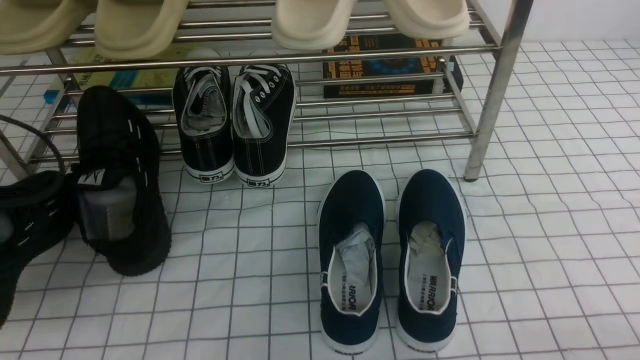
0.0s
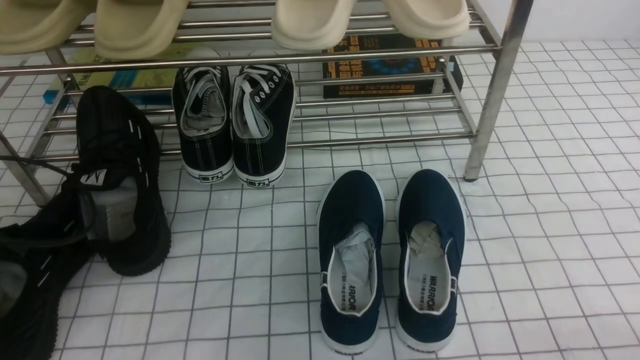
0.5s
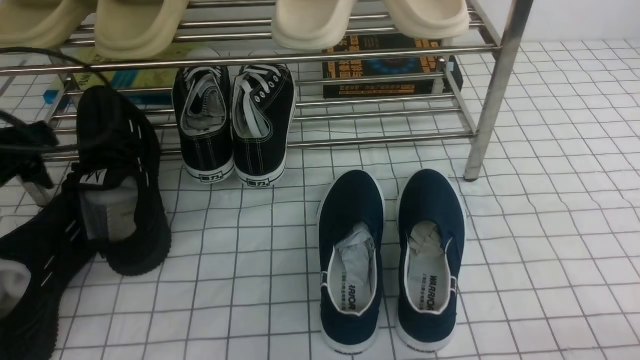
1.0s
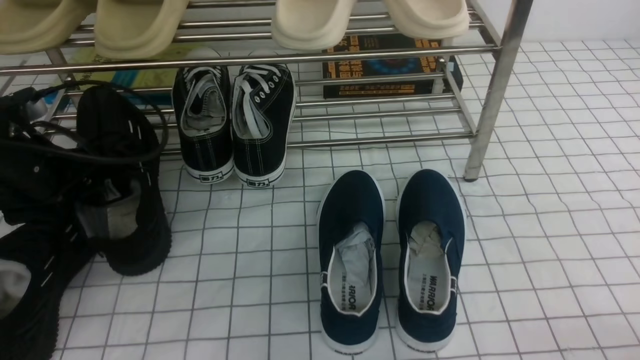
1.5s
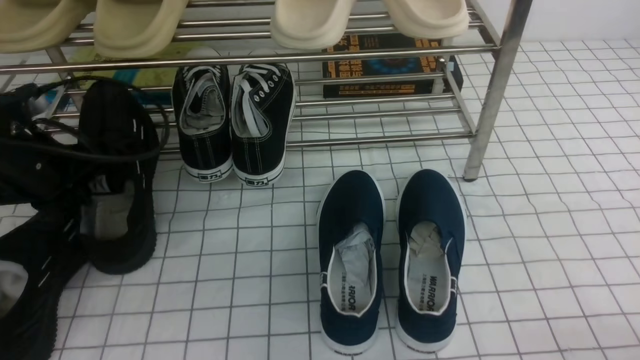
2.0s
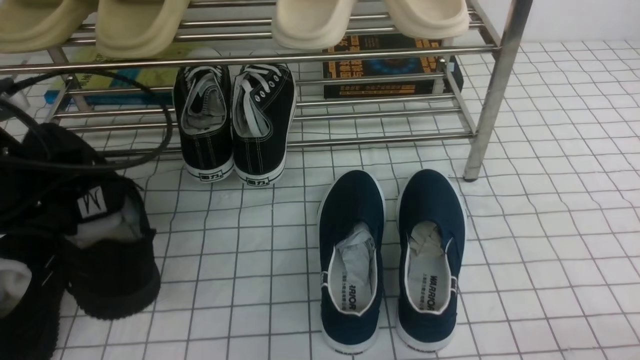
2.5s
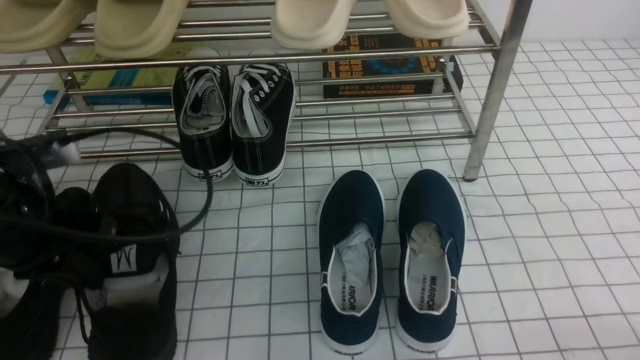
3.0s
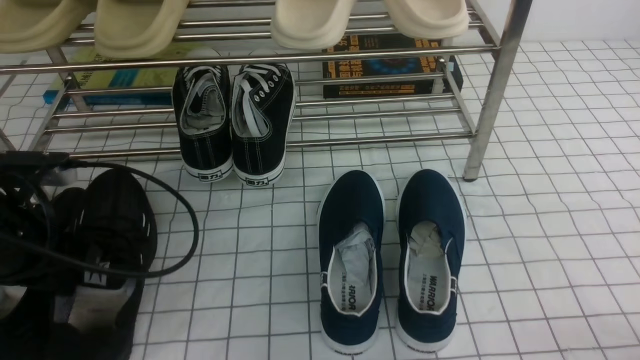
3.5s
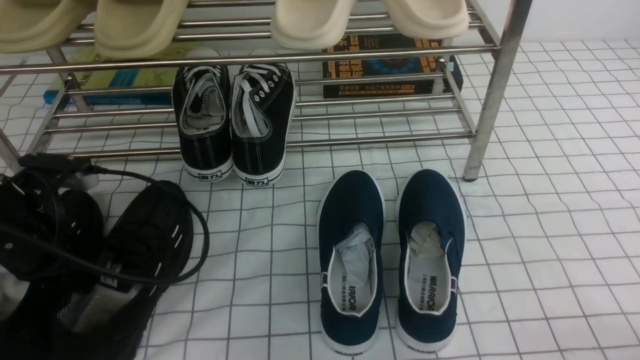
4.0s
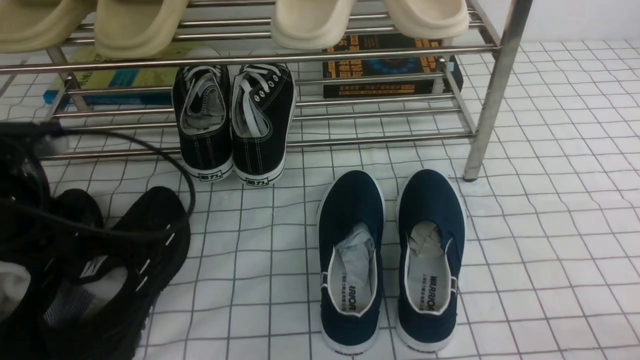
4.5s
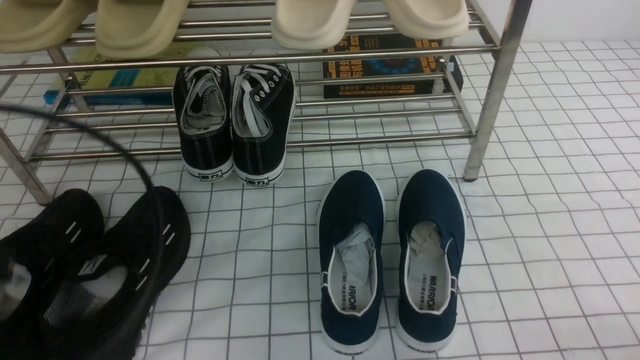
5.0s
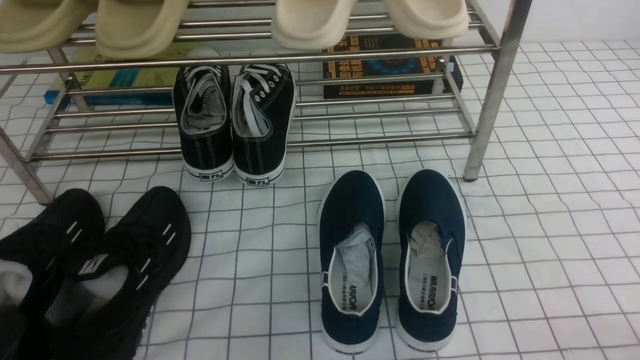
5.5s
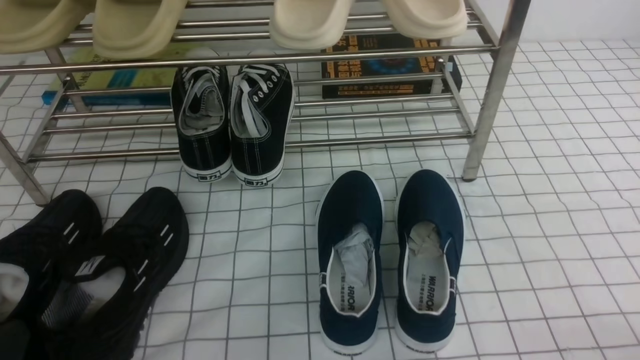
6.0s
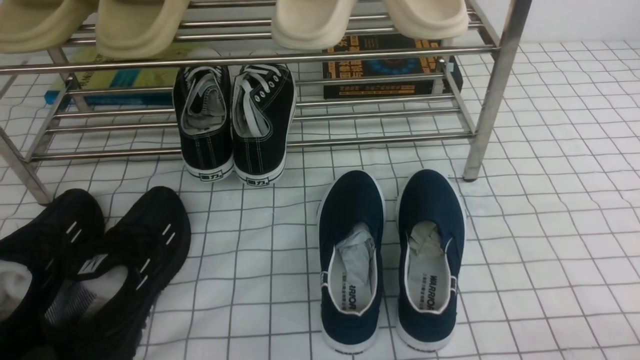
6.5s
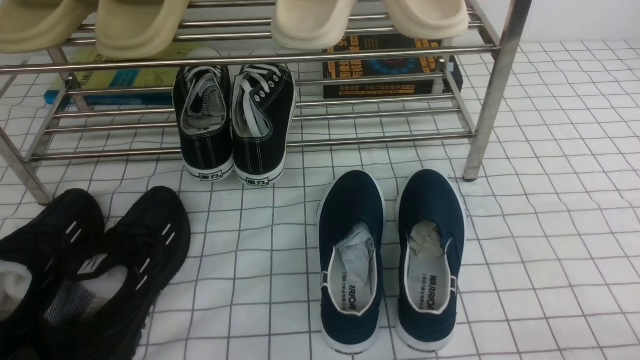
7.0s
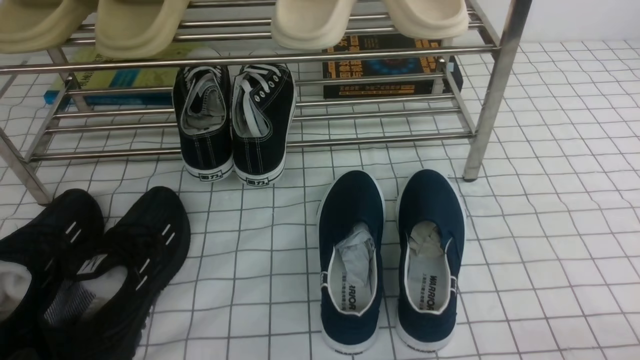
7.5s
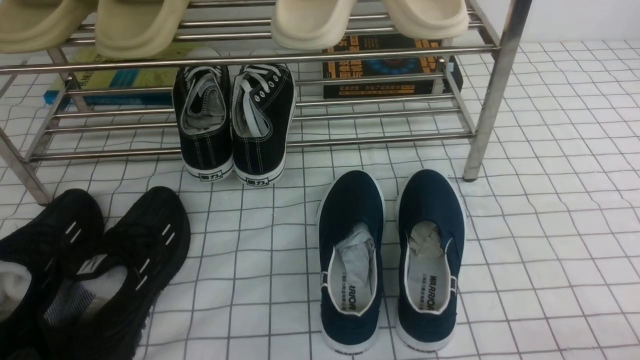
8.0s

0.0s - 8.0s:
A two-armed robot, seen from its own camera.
Step, 1.0s - 1.5s: use the left arm to clamp a shoe on the left side of the shoe rack.
Step, 2.5s - 4.5s: Use your left arm to remove the clamped shoe from the shoe rack and put it down.
0.0s - 2.0s: The left gripper moves forward, roughly 10 cm, and opens and closes again.
2.0s - 4.0s: The left gripper heads backward, covering roughly 5 cm.
4.0s - 6.0s: The left gripper travels backward by approximately 20 cm, and opens, then closes once more.
6.0s - 8.0s: There are only small adjustments of the grippers.
